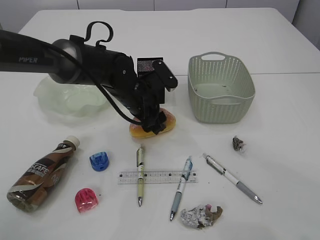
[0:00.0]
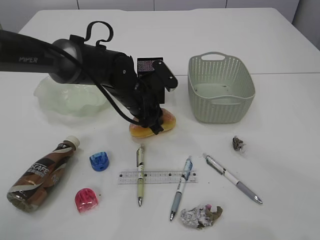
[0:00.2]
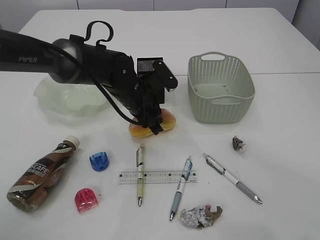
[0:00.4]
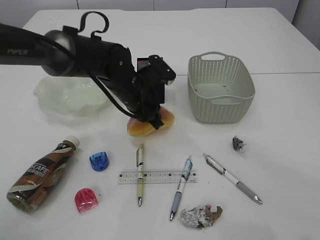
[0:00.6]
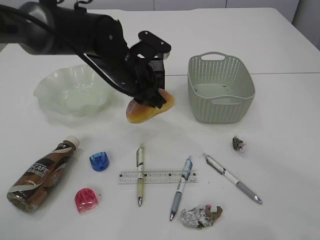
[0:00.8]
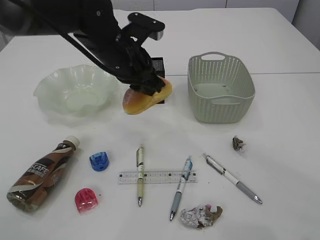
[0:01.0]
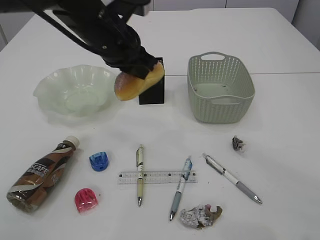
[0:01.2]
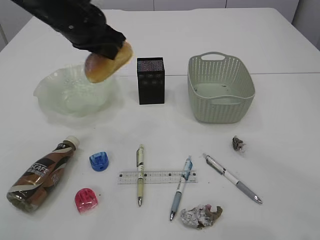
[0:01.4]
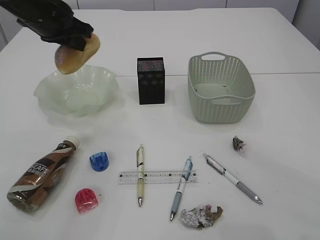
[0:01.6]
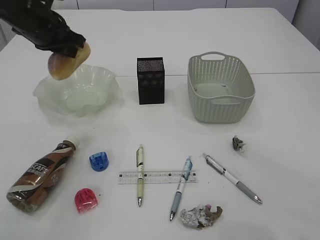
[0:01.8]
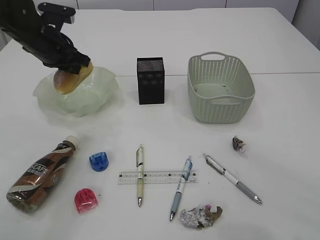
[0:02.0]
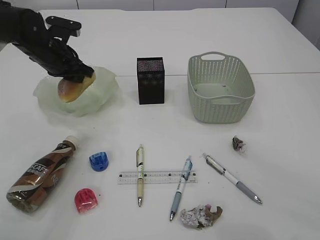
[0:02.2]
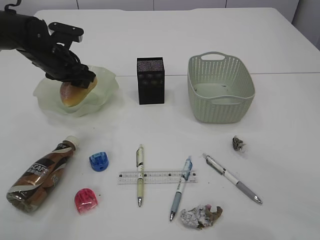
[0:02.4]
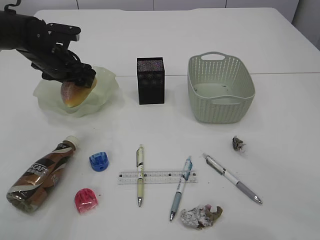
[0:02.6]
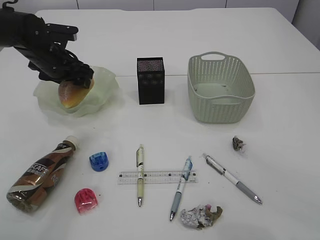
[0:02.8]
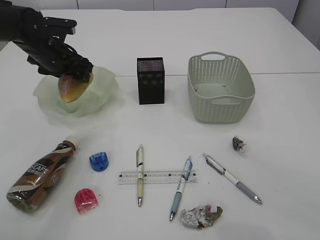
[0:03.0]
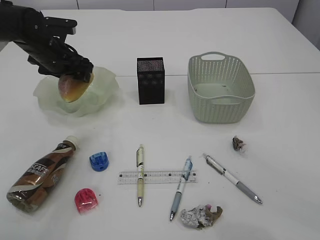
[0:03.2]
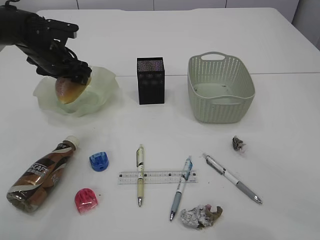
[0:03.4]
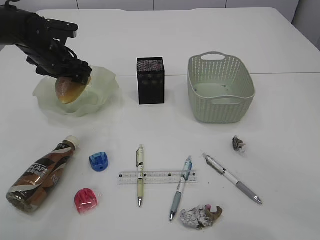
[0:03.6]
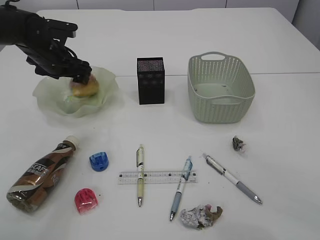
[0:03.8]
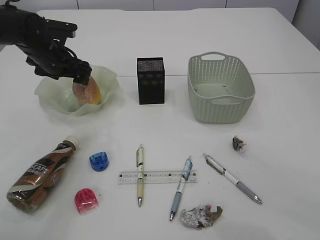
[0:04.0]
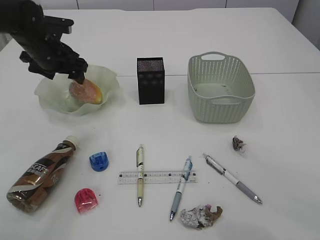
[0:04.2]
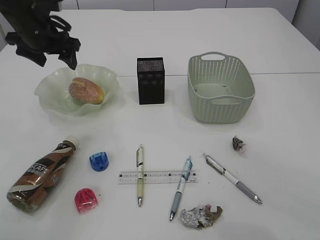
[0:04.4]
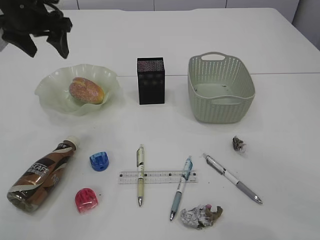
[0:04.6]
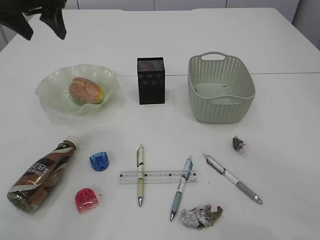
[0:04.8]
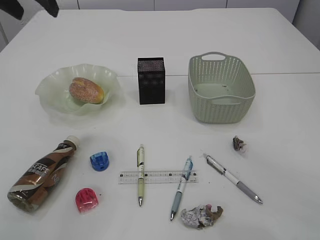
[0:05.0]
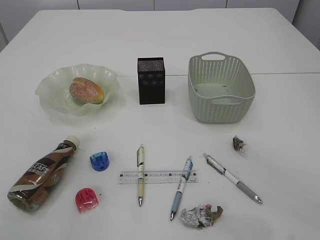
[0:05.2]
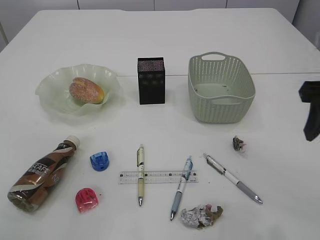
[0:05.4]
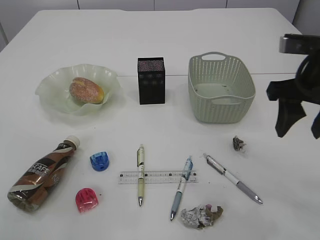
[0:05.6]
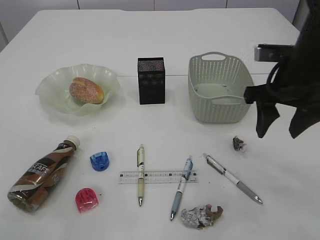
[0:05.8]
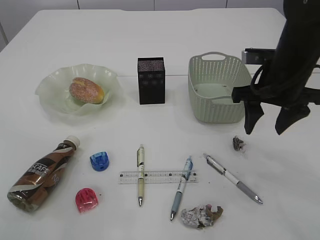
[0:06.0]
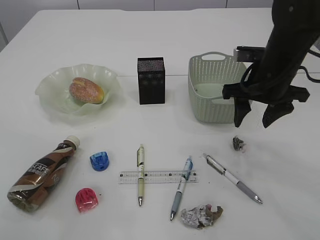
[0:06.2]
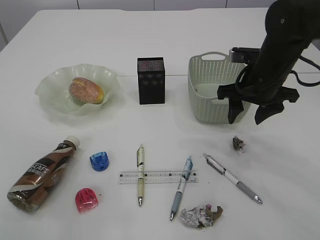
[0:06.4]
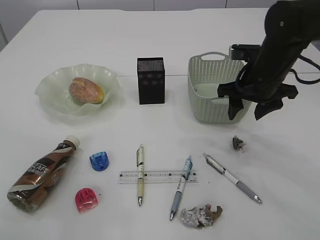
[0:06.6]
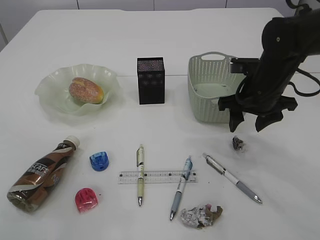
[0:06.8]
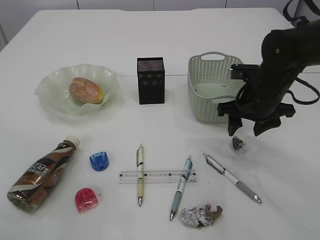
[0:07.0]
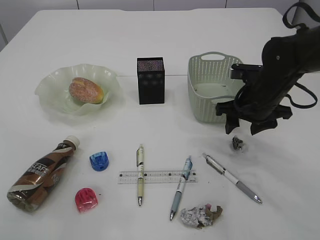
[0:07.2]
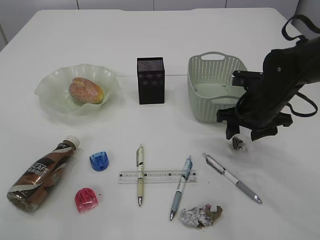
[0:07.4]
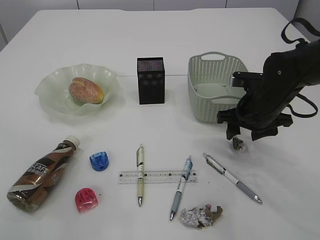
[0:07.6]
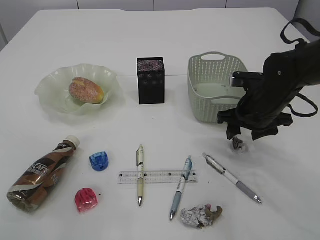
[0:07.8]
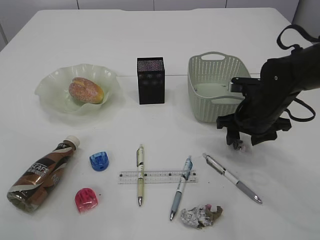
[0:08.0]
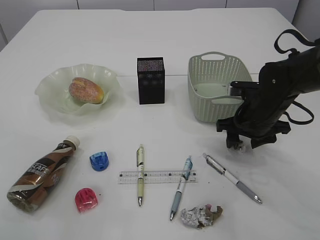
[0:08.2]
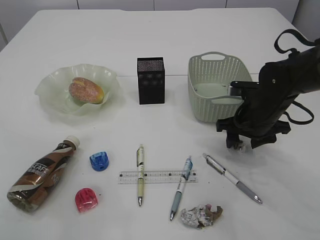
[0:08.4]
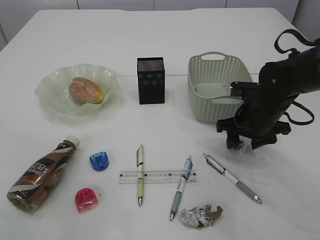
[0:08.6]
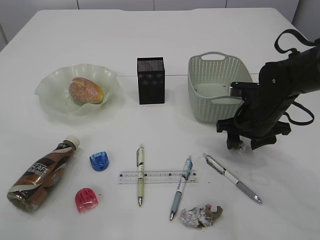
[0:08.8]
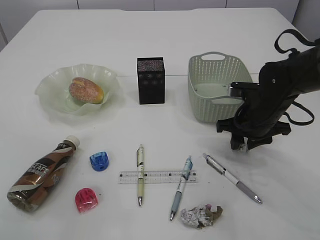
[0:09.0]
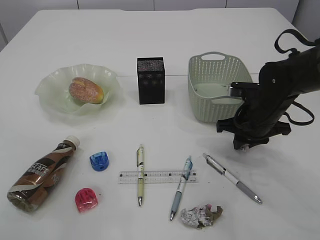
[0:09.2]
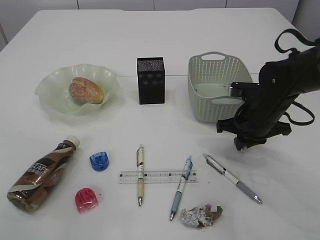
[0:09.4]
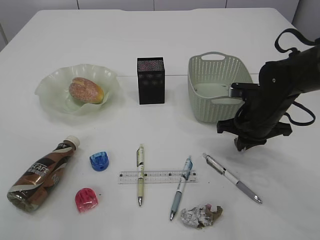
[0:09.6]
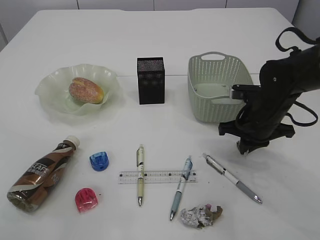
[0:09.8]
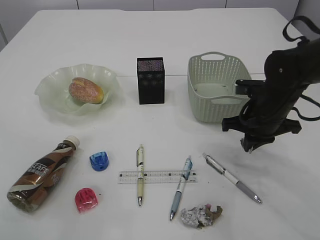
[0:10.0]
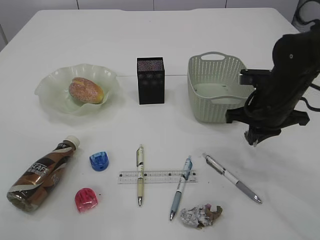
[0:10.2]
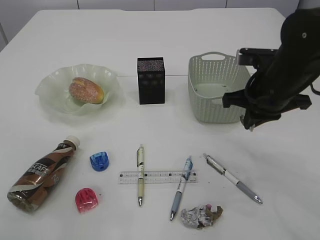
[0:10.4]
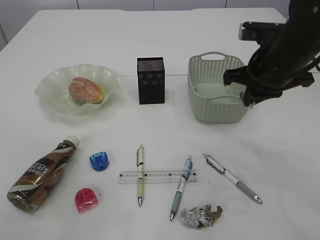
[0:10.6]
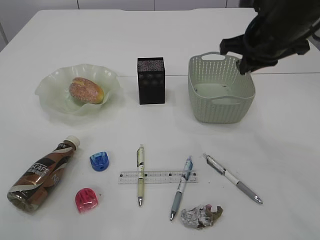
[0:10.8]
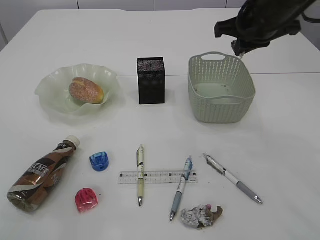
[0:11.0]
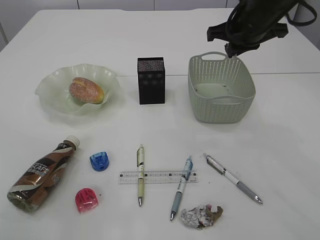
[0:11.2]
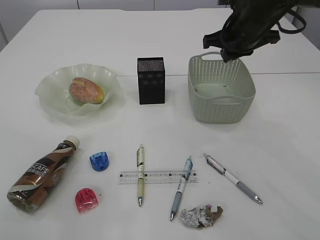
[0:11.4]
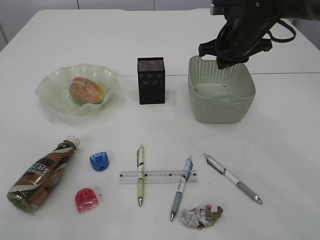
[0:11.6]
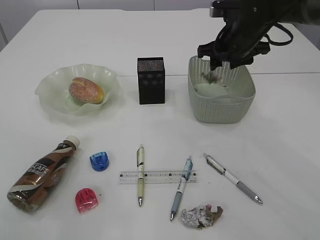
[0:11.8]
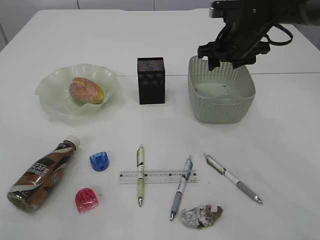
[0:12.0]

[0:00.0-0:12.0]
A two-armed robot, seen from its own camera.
Step, 1.2 to 4.6 s: place the bread in the plate.
Step, 4.8 to 10.2 s: Pick up the waste paper.
0.0 to 1.6 s: The left gripper moves upward and to the left, about 20 cm, and closes.
1.6 to 3.0 s: The left gripper heads downward and forward, covering some 10 cm, and opens.
3.0 to 4.4 s: The left gripper goes roughly 5 cm upward.
4.4 to 6.0 s: The right gripper heads forward, downward and to the left, covering roughly 15 cm. The left gripper goes some 25 cm upward and backward.
6.0 to 7.6 s: The right gripper goes approximately 10 cm downward.
7.6 to 9.0 s: The grippers move only a little.
9.0 to 10.4 s: The right gripper shifts approximately 10 cm upward, and closes its fingers.
10.4 to 12.0 s: The right gripper shifts about 10 cm forward, and opens its fingers.

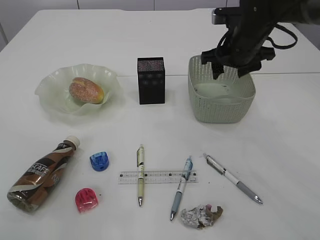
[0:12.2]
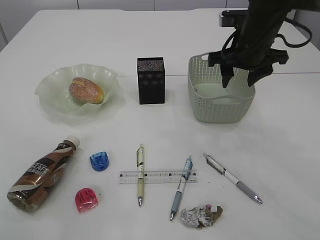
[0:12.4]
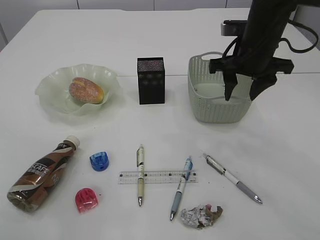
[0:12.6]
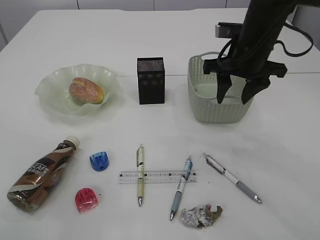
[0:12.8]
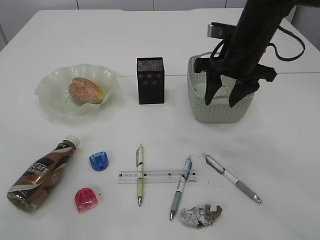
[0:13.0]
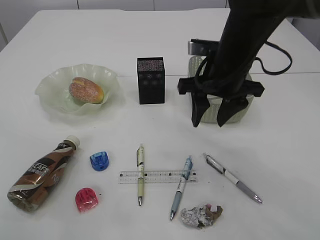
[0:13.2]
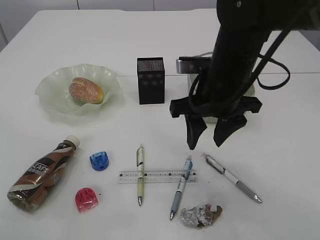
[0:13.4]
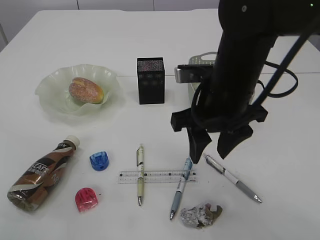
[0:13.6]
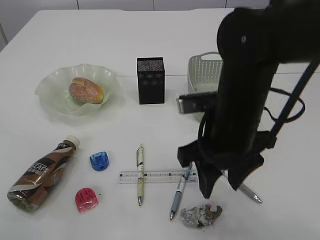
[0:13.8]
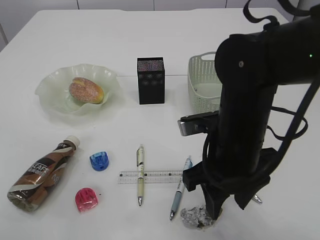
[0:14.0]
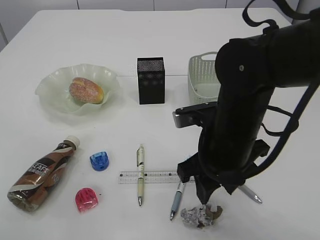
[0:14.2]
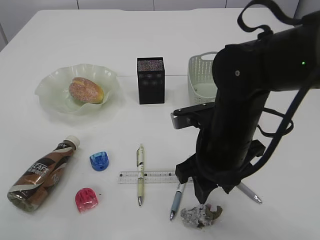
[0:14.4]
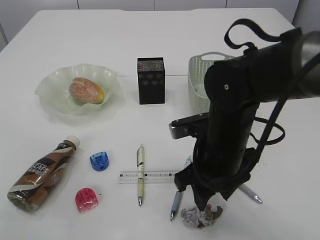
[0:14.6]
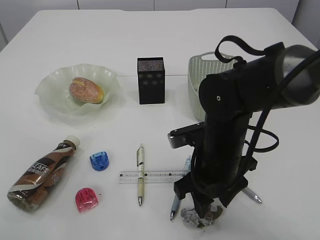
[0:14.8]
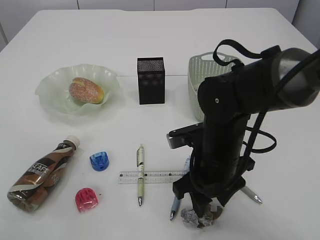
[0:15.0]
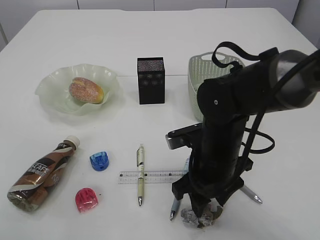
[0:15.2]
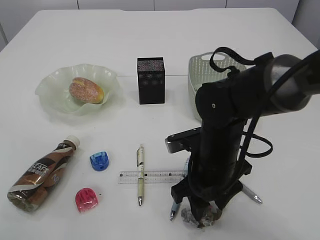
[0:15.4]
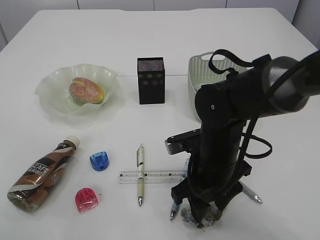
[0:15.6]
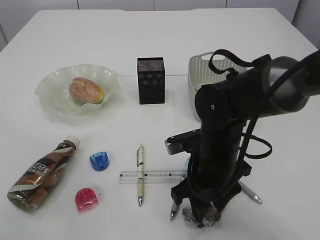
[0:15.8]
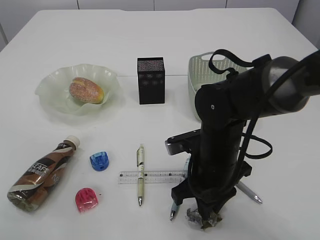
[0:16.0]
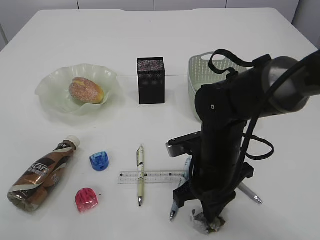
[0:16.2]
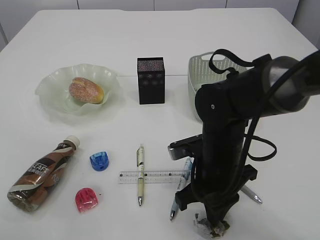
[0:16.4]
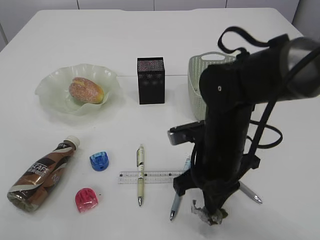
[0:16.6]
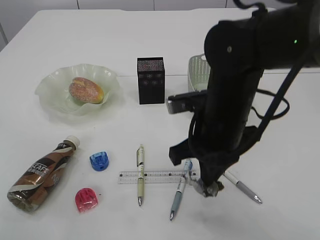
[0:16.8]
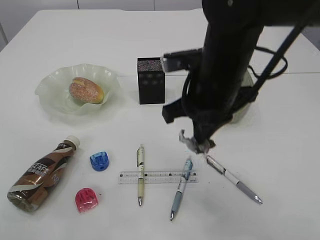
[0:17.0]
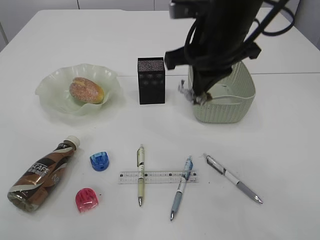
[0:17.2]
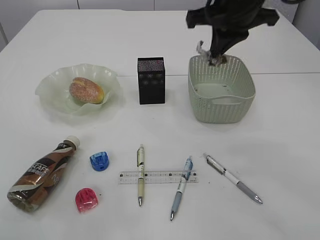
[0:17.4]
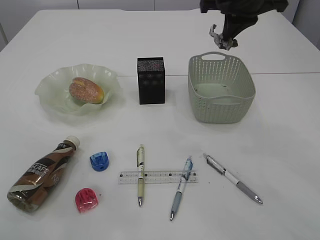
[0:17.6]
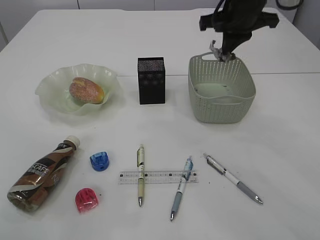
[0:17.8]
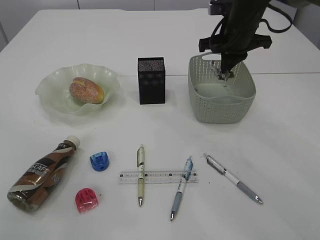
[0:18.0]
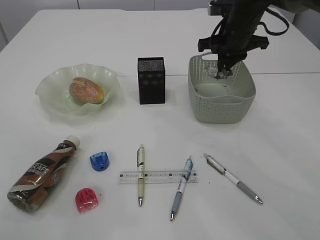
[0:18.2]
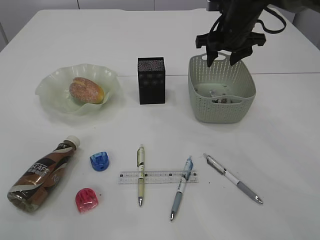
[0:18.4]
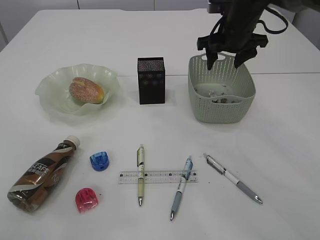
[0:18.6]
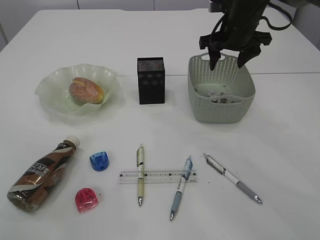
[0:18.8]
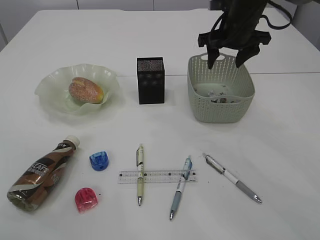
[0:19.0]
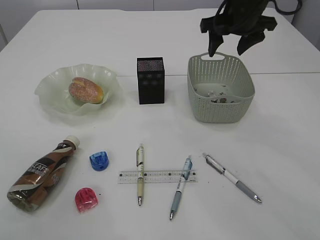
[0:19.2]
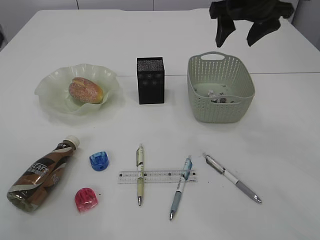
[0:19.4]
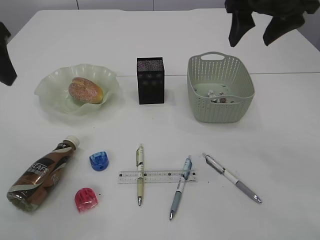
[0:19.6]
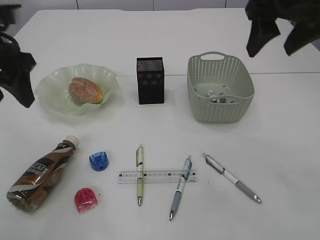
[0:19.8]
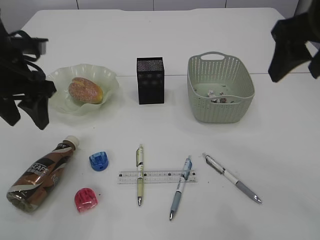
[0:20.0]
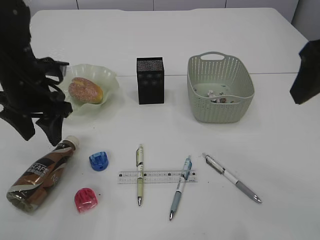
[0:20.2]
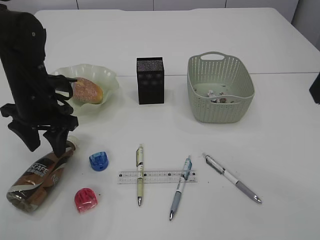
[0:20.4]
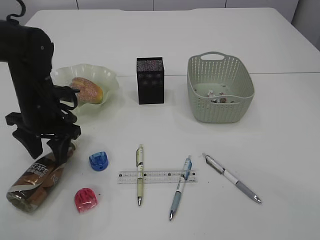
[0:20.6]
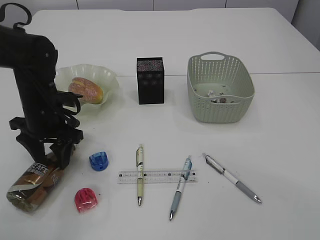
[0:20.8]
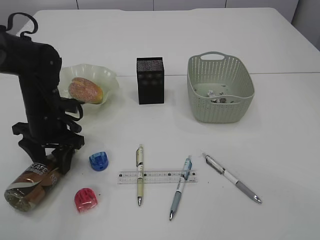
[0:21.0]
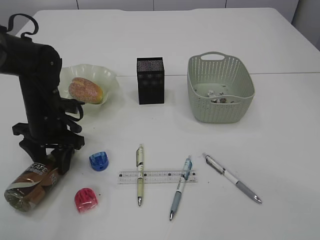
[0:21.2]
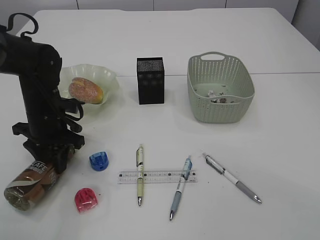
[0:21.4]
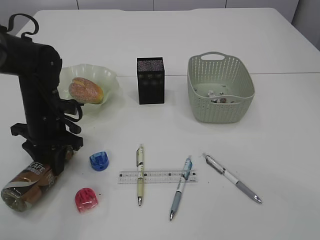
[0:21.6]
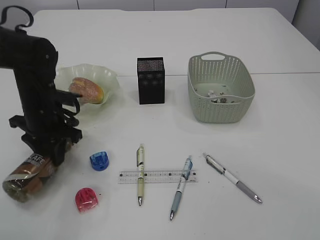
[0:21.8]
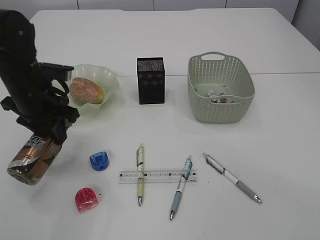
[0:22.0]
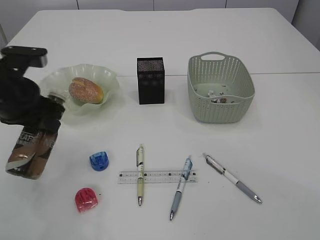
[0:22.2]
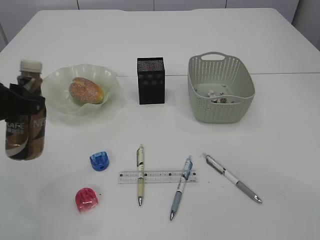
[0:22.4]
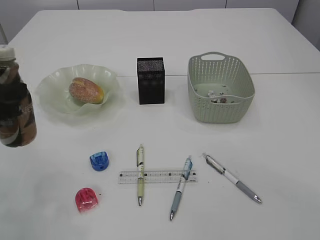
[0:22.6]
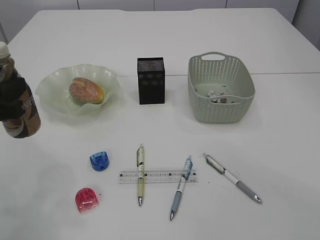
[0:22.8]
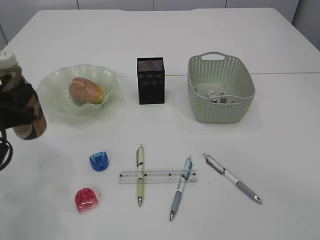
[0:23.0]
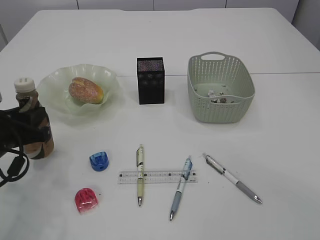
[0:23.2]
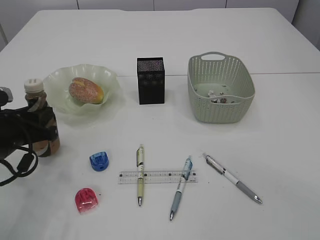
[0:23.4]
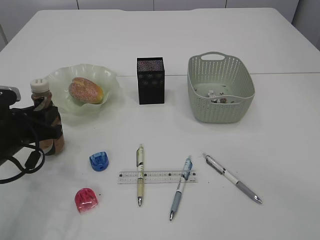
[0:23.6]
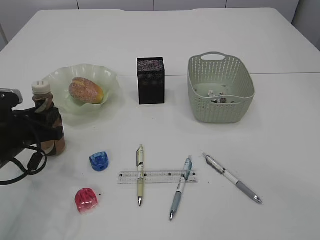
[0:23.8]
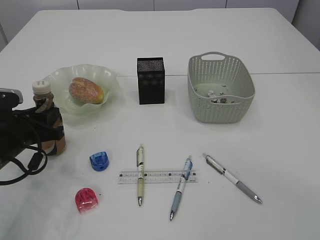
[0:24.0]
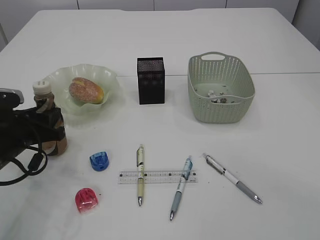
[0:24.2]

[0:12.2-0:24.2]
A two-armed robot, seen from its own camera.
Step, 12.4 to 16.8 s: Pick up the waste paper.
Step, 17.0 to 18.4 s: Place the waste paper in the basket.
Step, 18.6 to 21.8 s: Pick up the bottle with the left arm.
12.2 to 13.8 s: The right gripper moves backward and to the left, about 20 cm.
13.8 to 15.2 s: The right gripper goes roughly 10 cm downward.
15.2 to 16.6 s: The right gripper closes its fingers.
16.6 to 18.2 s: The right gripper shifts about 25 cm forward, upward and to the right.
18.2 to 19.8 s: The right gripper travels backward and upward by roughly 20 cm, and opens up, while the left gripper is displaced downward by about 15 cm.
19.8 to 21.2 s: The right gripper goes roughly 15 cm backward; the left gripper heads downward, covering some 20 cm.
21.2 to 22.6 s: The left gripper moves backward, upward and to the left, roughly 20 cm, and closes its fingers.
22.6 to 24.2 s: The left gripper moves downward and forward, some 15 cm.
